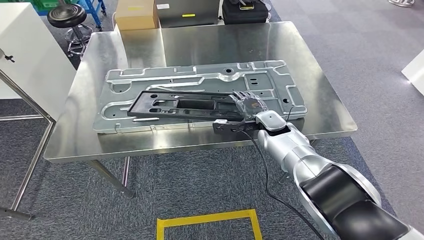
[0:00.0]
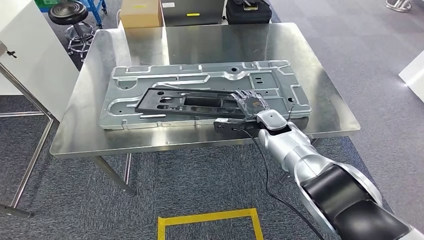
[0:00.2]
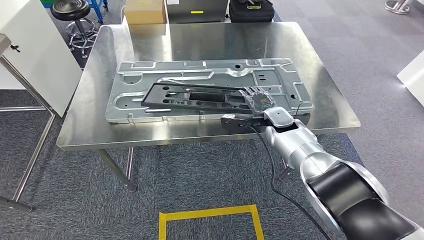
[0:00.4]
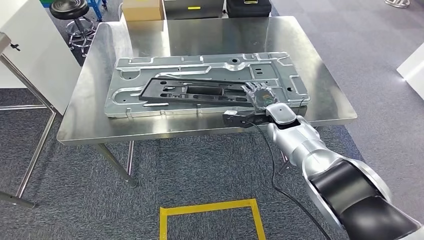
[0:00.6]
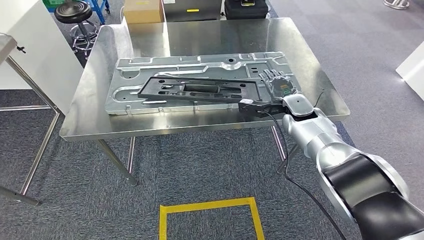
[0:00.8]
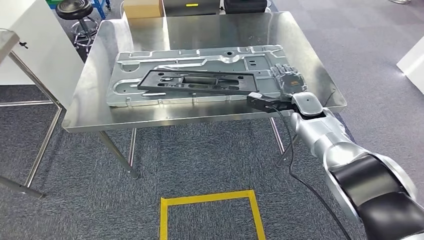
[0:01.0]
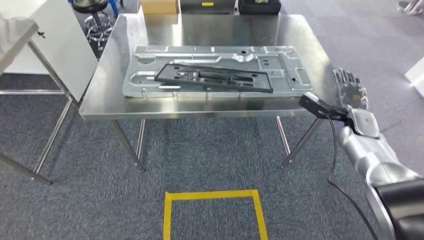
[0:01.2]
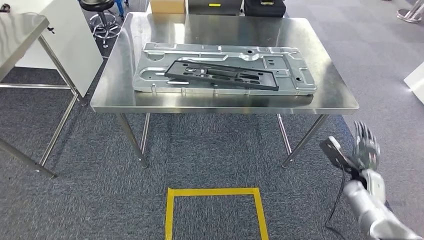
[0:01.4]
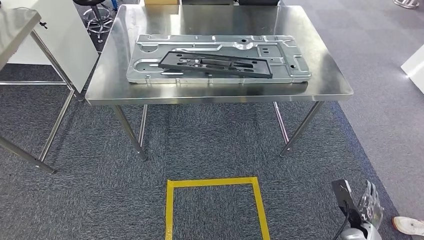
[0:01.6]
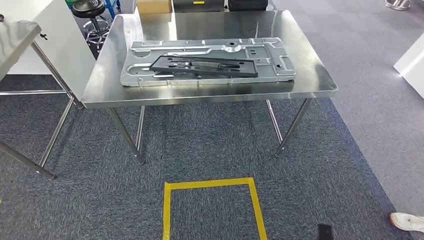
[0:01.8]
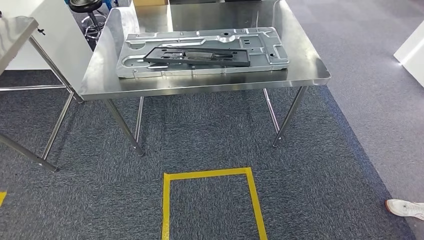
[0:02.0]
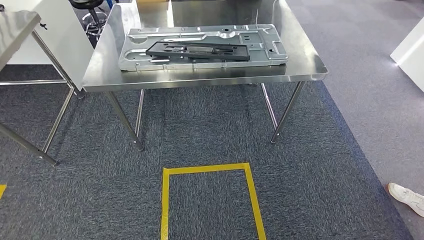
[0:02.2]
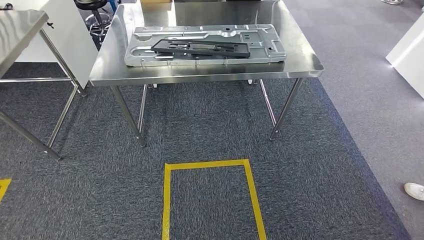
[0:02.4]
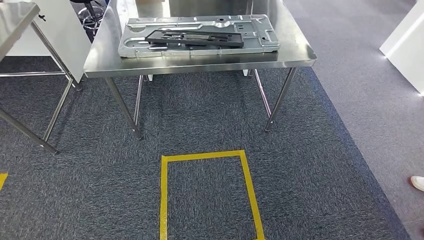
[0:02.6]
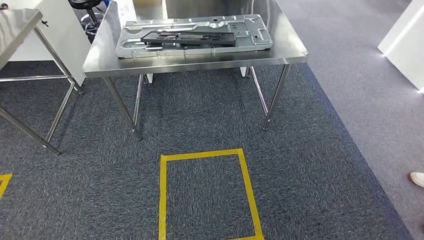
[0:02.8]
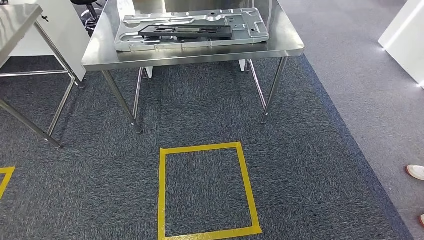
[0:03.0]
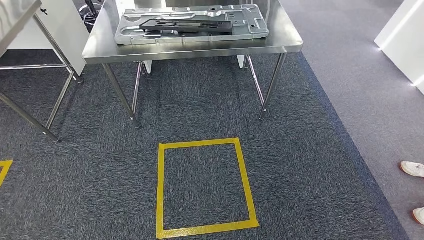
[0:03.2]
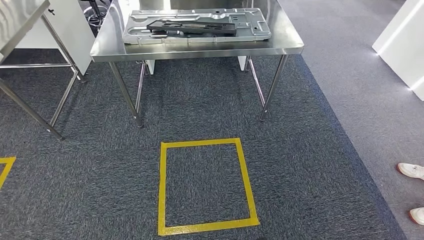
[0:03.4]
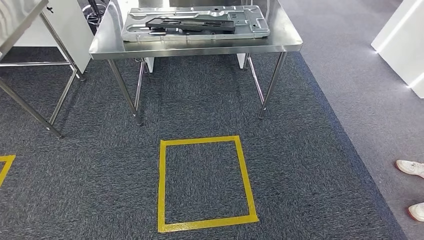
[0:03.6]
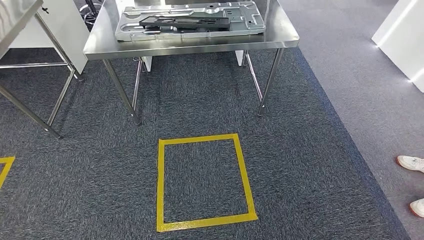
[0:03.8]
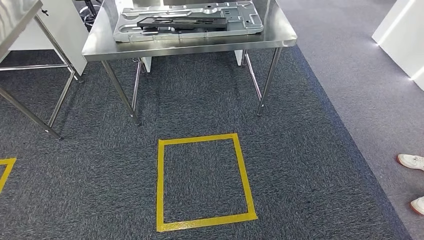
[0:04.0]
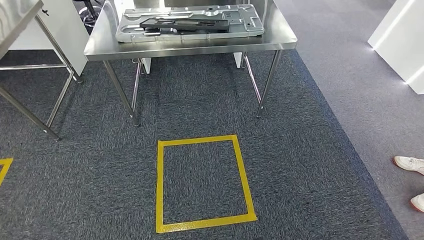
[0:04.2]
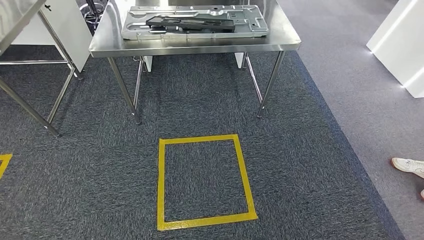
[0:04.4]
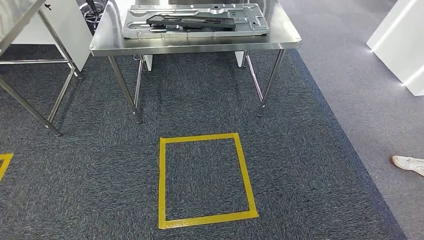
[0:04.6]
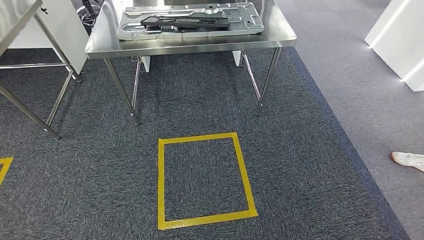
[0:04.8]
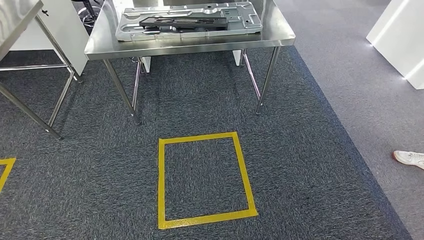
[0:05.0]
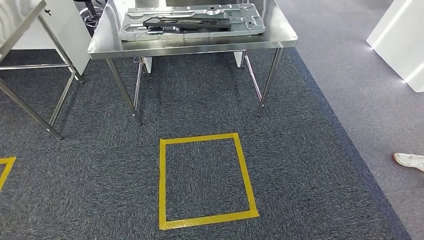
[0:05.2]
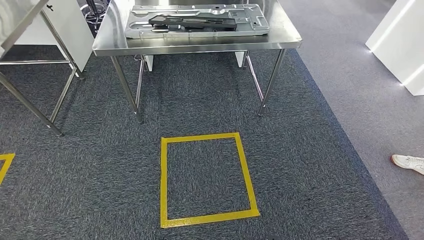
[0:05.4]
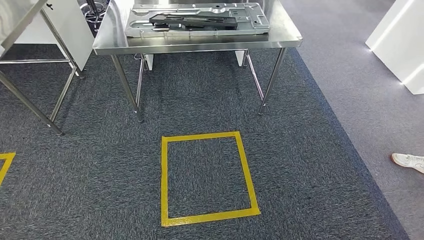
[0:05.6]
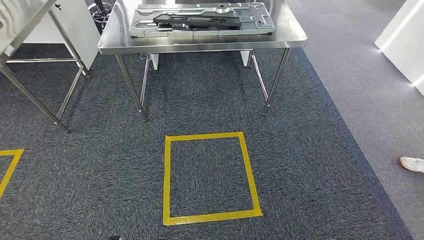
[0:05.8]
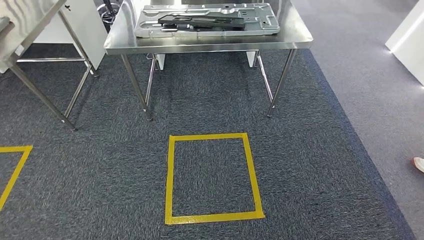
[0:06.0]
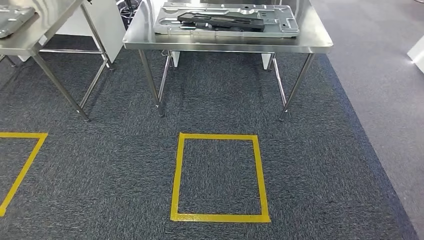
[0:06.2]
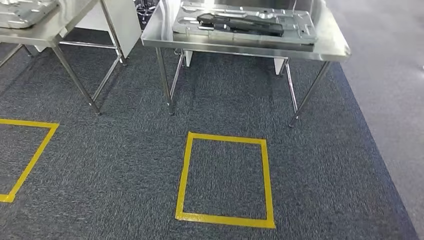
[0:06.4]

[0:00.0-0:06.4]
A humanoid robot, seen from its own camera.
Step, 0:00.0 to 0:02.4: Insert the large material into the corresponding slot on the workbench.
Step, 0:03.4 to 0:06.2: Return to the initial position at the shelf.
0:03.2 to 0:04.8: The right hand heads backward, covering about 5 cm.
